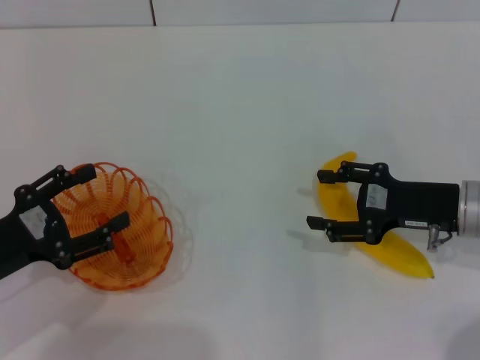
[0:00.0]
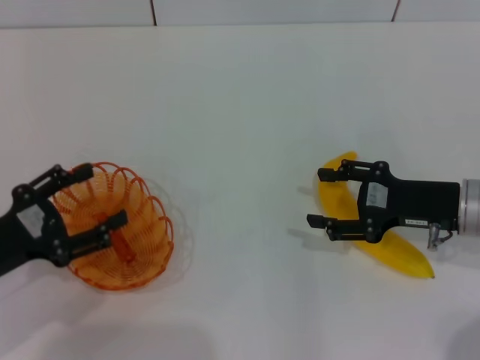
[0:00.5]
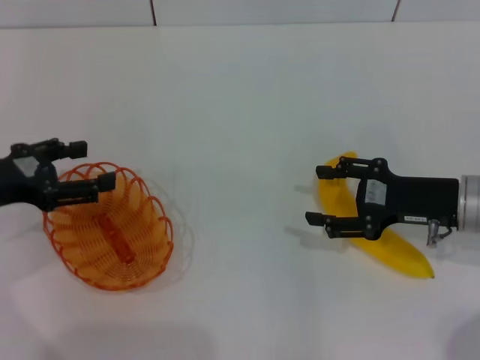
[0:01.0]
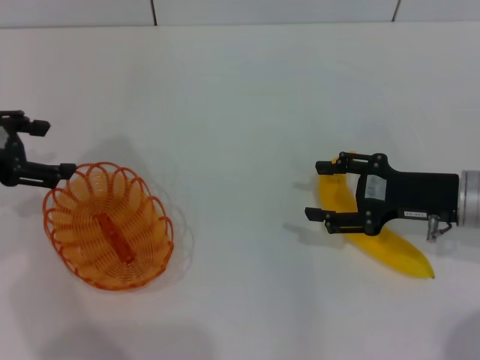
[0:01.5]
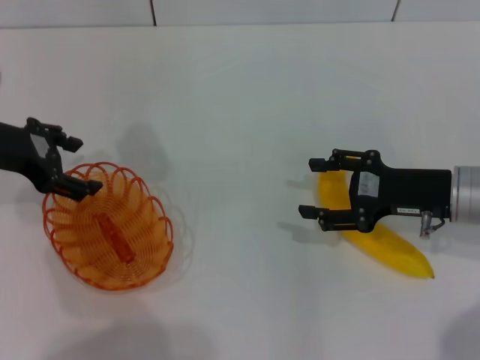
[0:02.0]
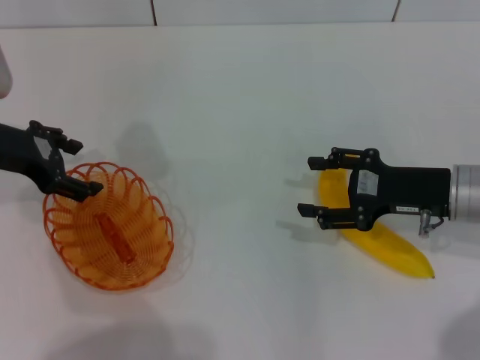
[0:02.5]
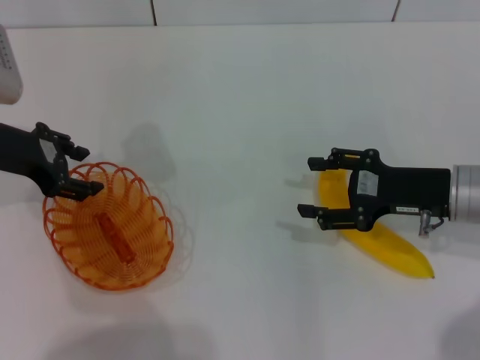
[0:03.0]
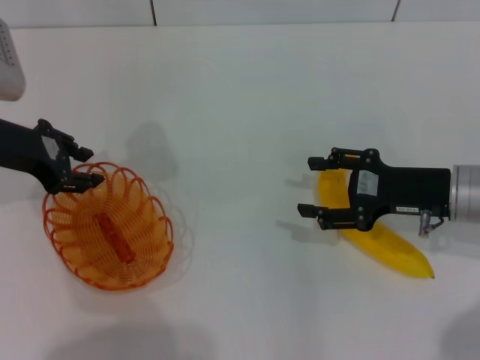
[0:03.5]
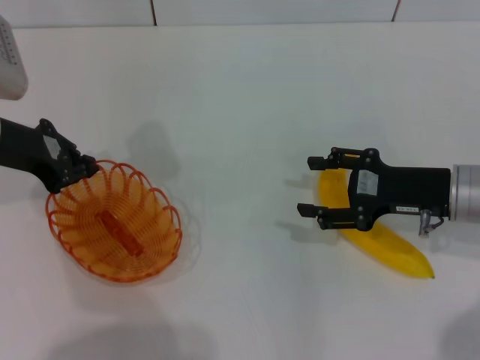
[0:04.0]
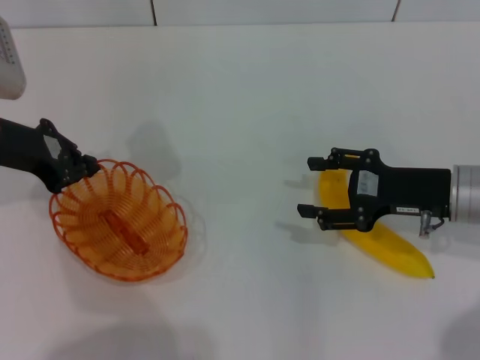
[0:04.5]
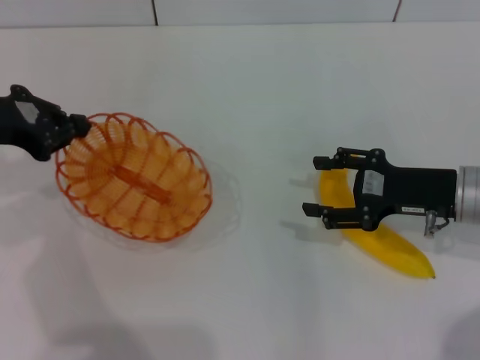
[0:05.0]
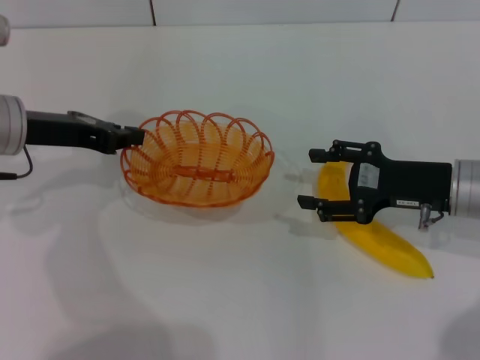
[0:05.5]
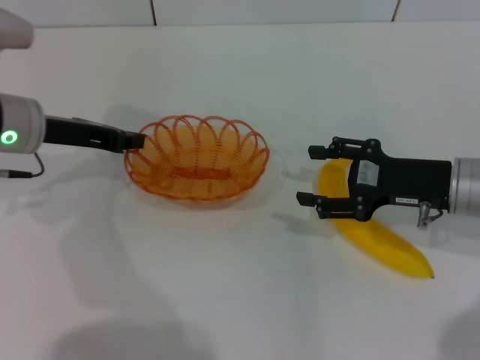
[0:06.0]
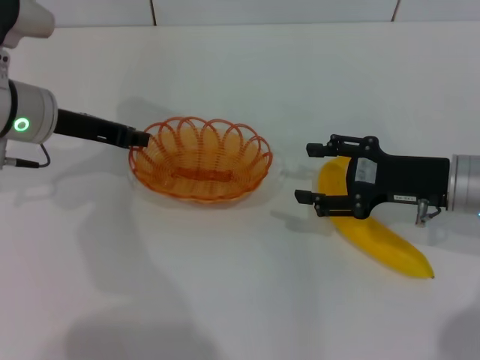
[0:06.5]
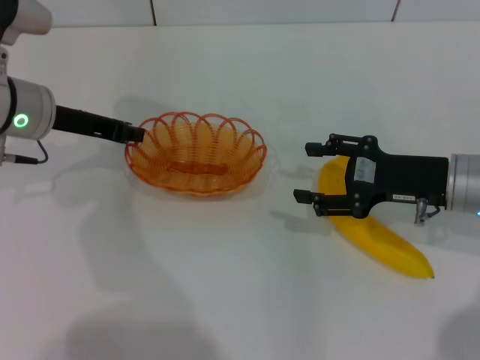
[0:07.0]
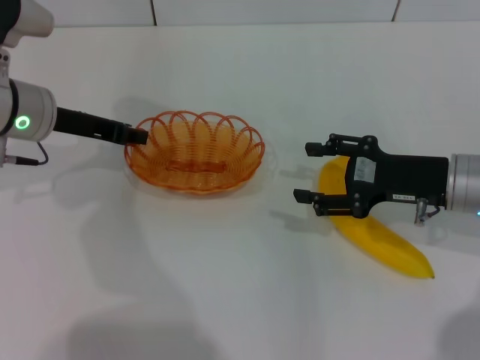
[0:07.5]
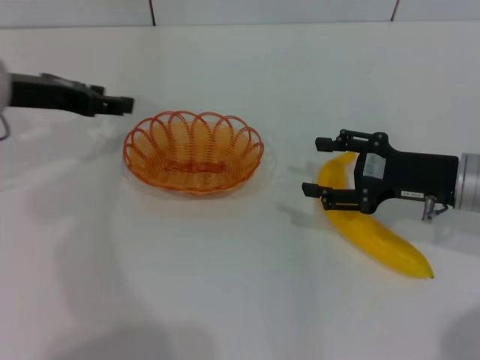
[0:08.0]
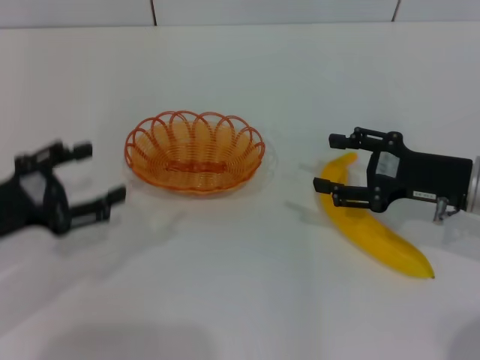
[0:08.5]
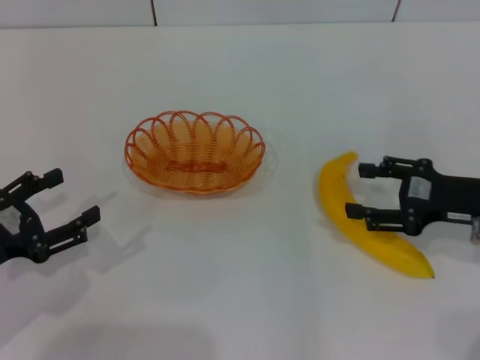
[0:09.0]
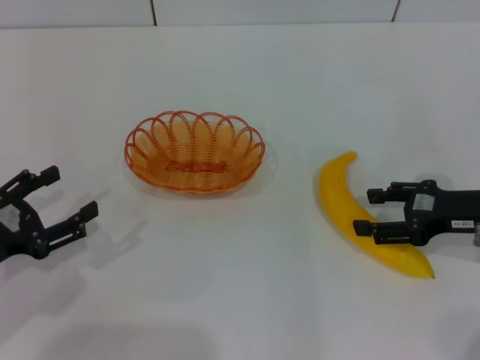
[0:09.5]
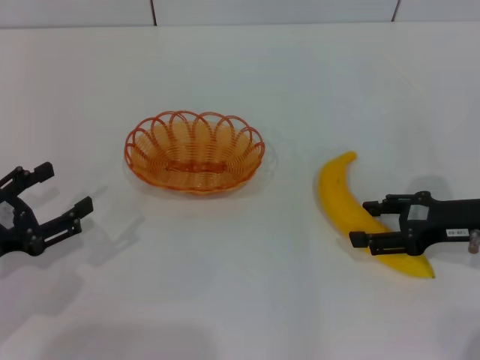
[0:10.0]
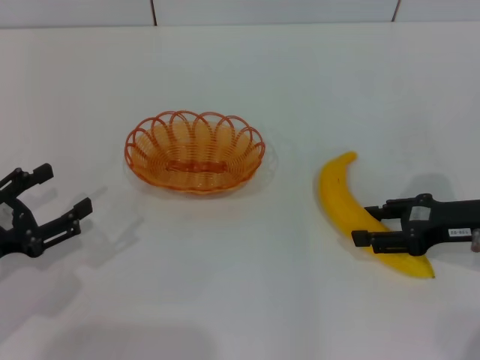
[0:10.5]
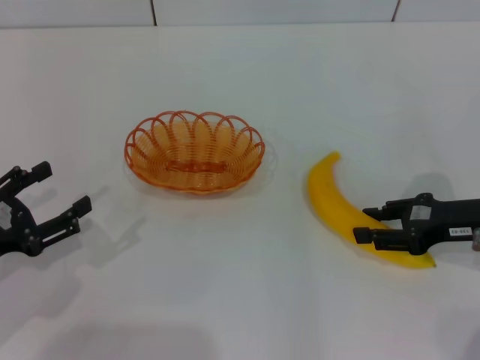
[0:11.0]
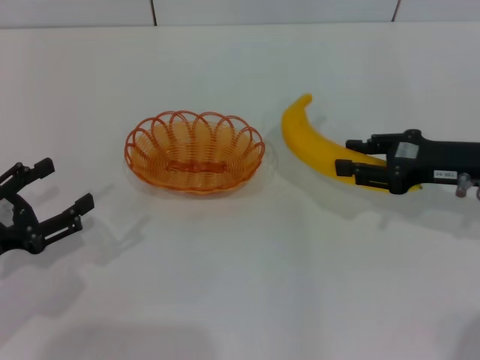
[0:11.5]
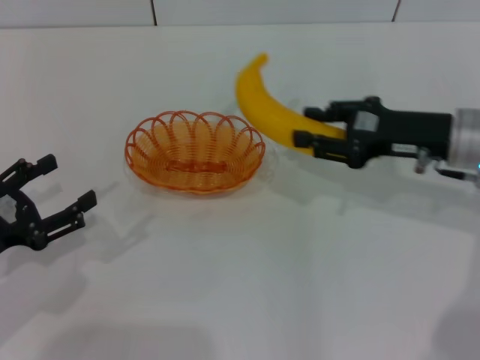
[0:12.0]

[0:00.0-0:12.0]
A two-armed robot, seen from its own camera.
Step, 0:00.0 to 0:04.5: Pick up the basket with the left gripper.
Step, 0:05.0 to 0:07.5: Place the basket in the center of view with the left gripper.
Step, 0:08.5 to 0:11.0: Pick up the banana with the right gripper.
0:00.0 to 0:02.0: The left gripper travels forward and upward by approximately 15 cm.
0:02.0 to 0:04.0: The left gripper closes.
0:06.0 to 0:08.0: The left gripper opens up.
0:08.0 to 0:10.0: The right gripper moves approximately 5 cm; the left gripper is displaced backward, downward and to the left by approximately 20 cm, and opens.
0:10.0 to 0:12.0: The right gripper moves to the left and forward, roughly 10 cm, and closes.

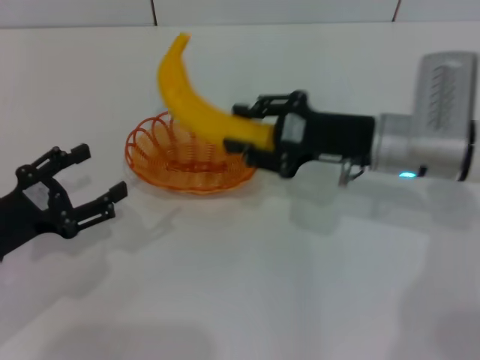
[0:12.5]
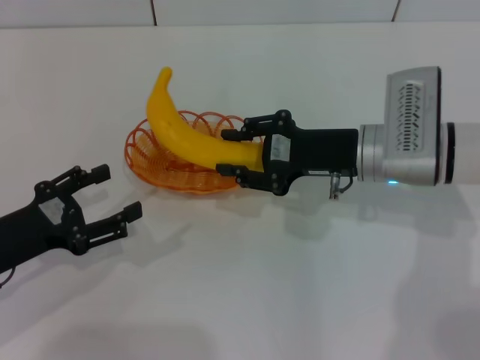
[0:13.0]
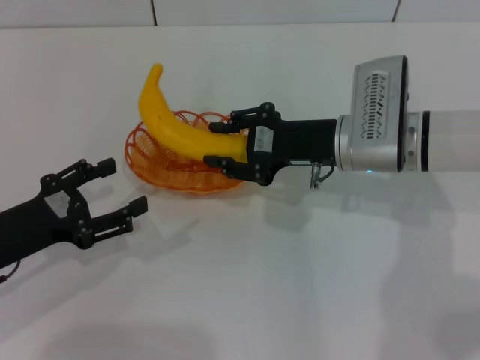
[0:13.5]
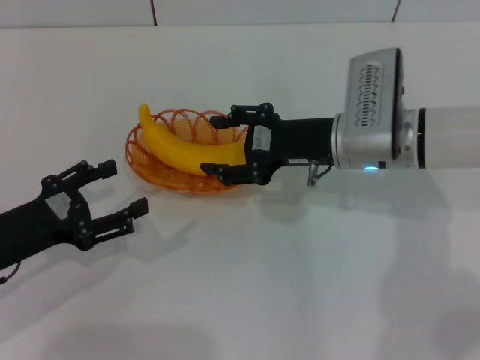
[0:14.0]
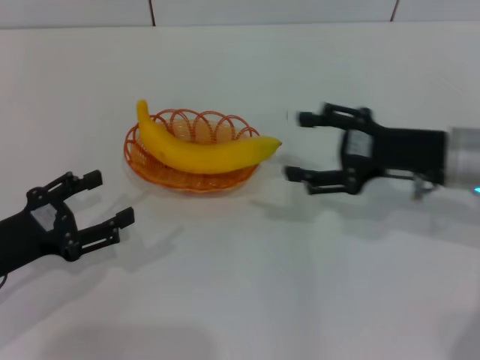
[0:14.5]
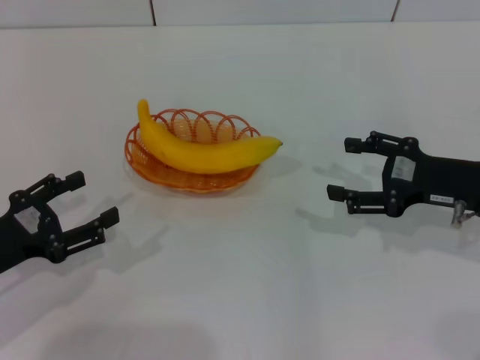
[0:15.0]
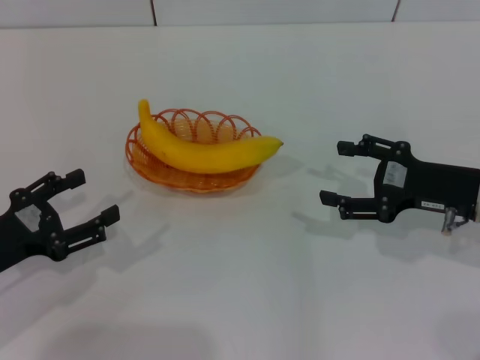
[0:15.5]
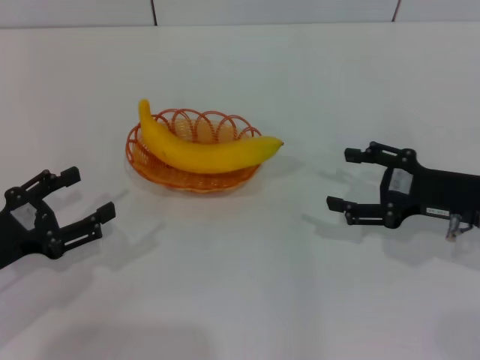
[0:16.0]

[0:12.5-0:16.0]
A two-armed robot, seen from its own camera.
Step, 0:12.5 to 0:14.0: Place the banana into the basket with the right gripper.
0:12.5 to 0:14.5: The right gripper moves to the right, approximately 5 cm, and opens.
0:14.5 to 0:16.0: The right gripper shifts by some 5 cm.
